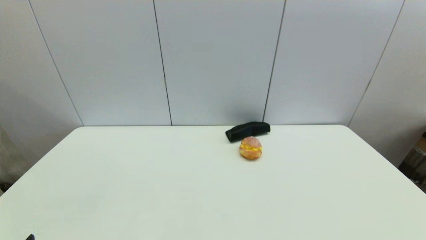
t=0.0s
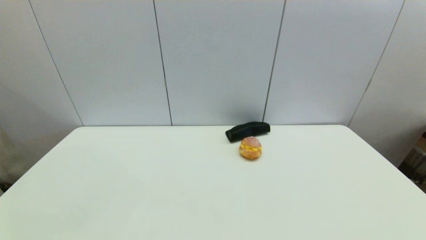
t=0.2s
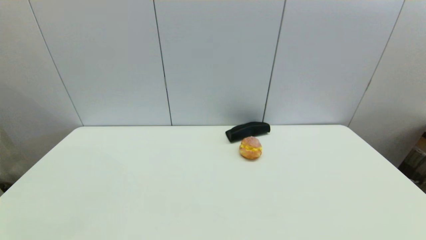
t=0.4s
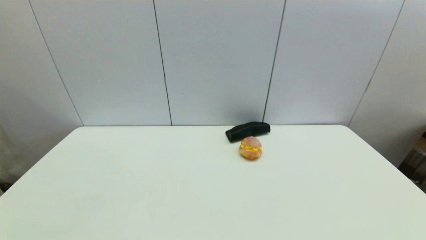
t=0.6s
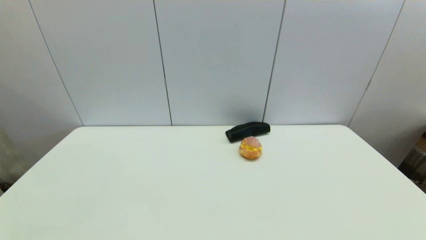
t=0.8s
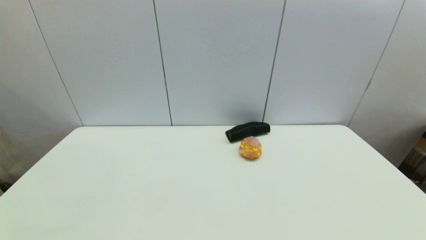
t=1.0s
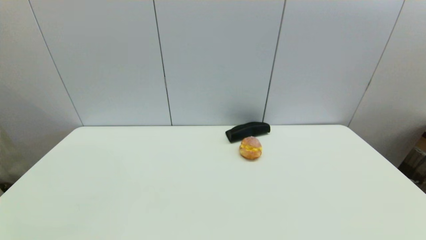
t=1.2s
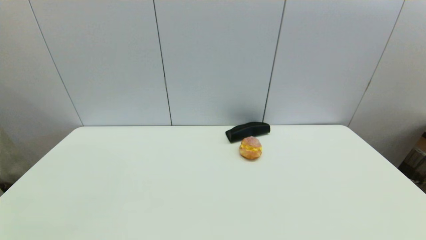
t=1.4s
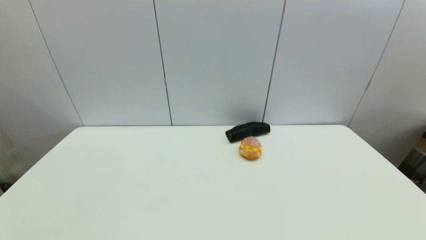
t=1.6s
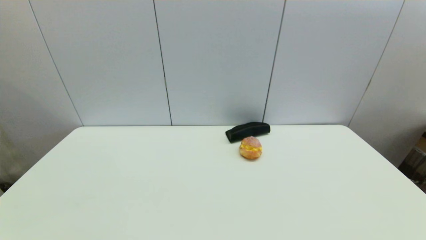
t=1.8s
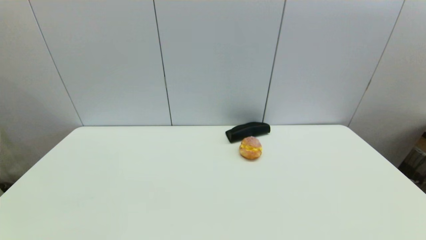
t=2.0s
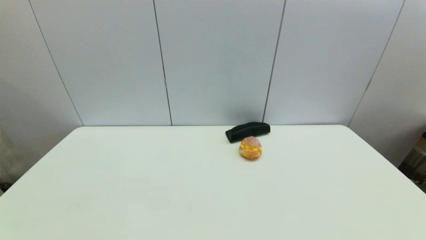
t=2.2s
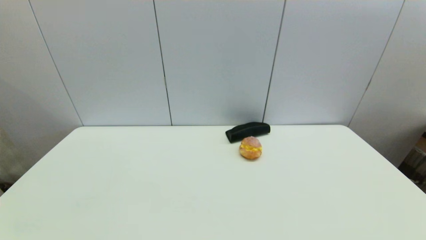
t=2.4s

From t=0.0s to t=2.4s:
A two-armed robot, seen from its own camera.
From t=1.2s to t=2.4s: Neither gripper changes place.

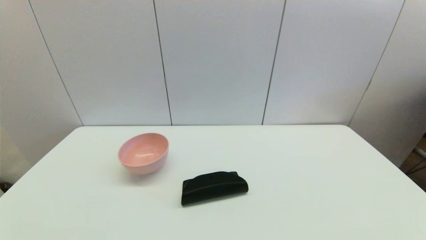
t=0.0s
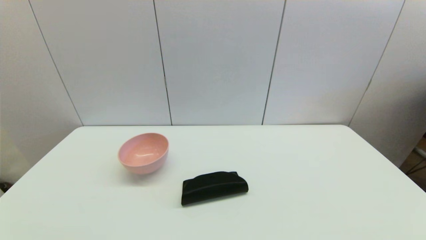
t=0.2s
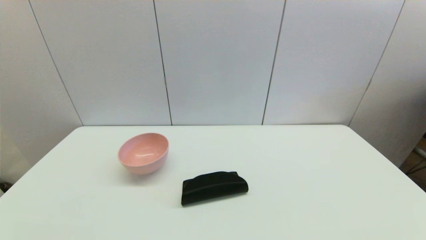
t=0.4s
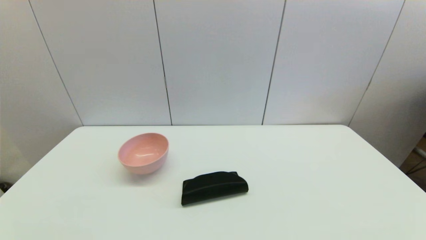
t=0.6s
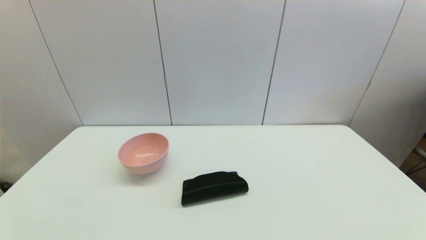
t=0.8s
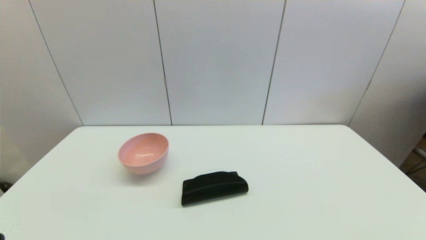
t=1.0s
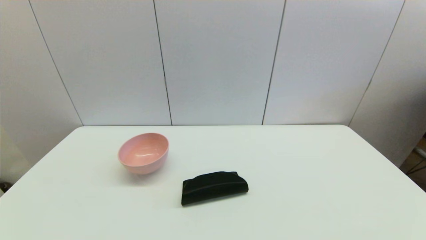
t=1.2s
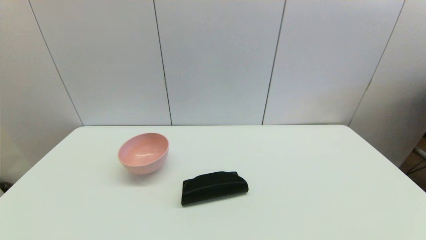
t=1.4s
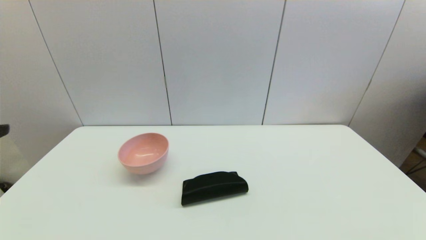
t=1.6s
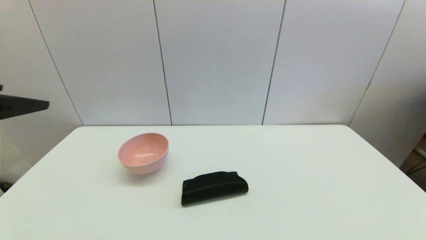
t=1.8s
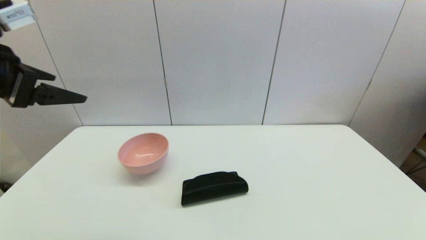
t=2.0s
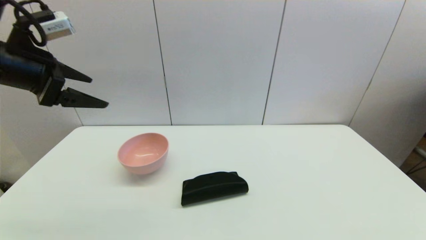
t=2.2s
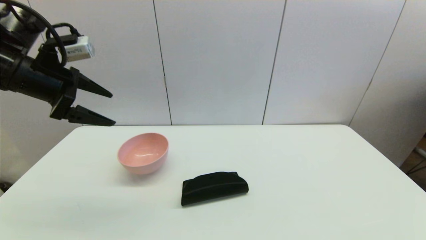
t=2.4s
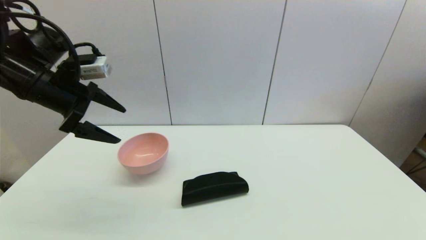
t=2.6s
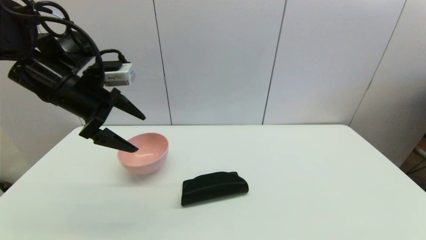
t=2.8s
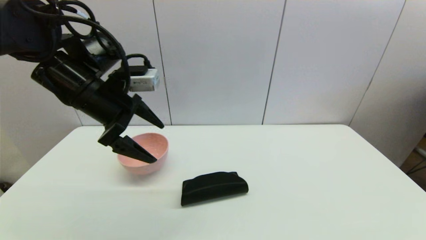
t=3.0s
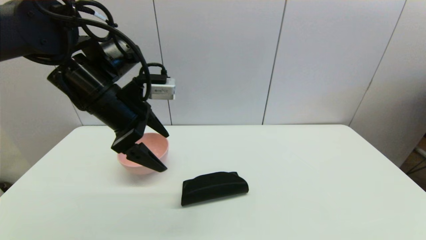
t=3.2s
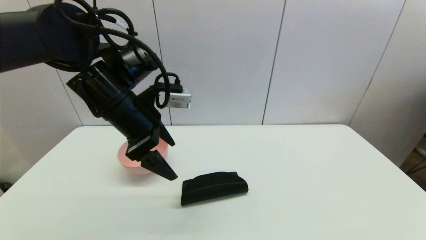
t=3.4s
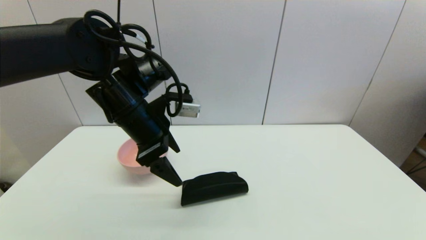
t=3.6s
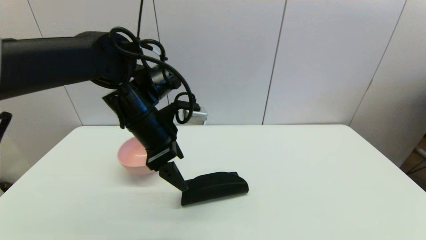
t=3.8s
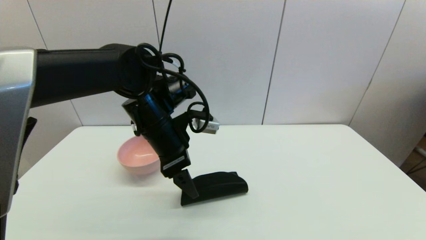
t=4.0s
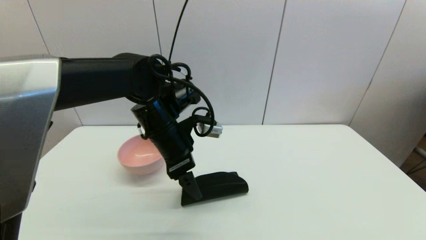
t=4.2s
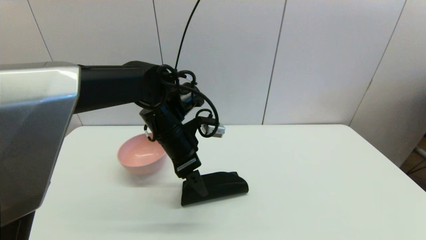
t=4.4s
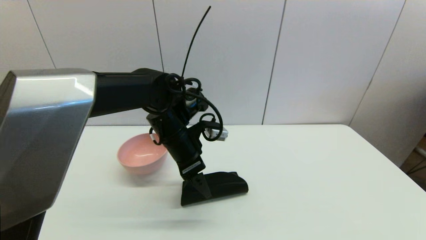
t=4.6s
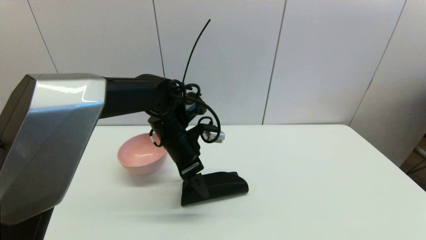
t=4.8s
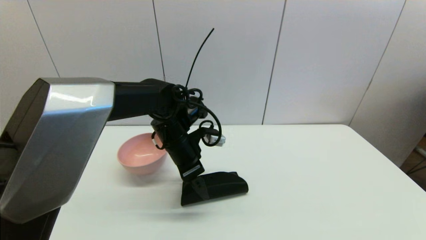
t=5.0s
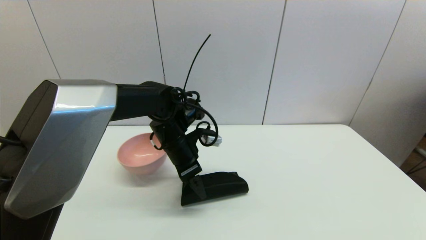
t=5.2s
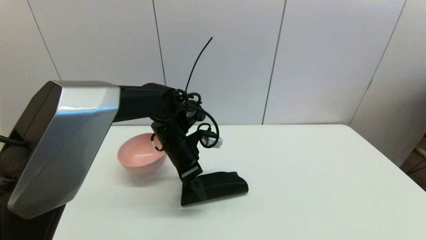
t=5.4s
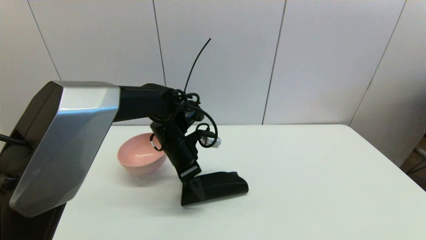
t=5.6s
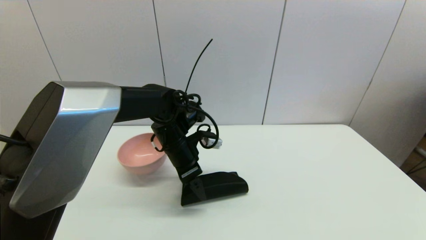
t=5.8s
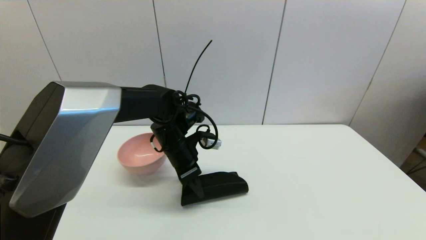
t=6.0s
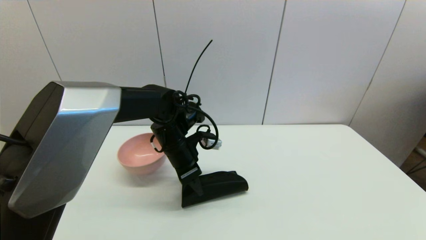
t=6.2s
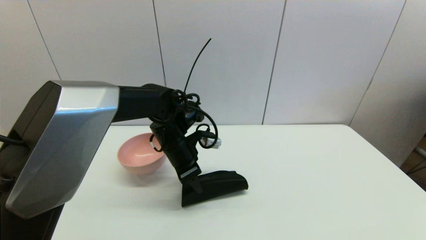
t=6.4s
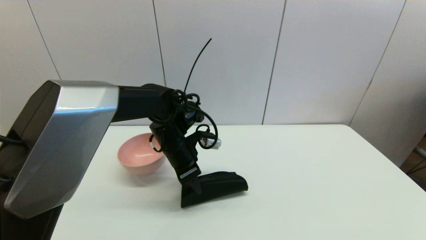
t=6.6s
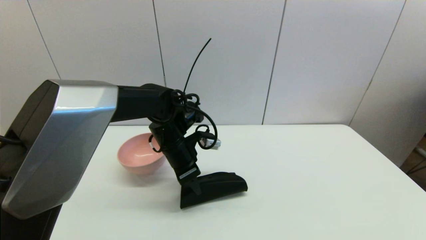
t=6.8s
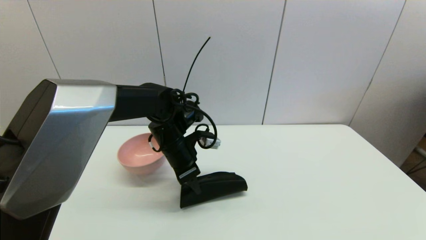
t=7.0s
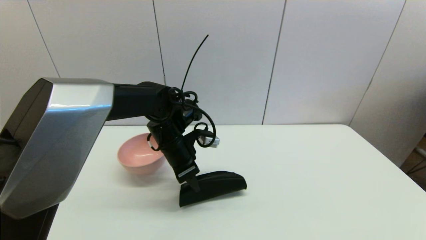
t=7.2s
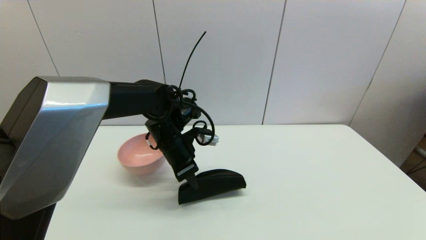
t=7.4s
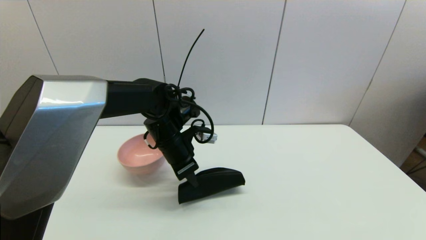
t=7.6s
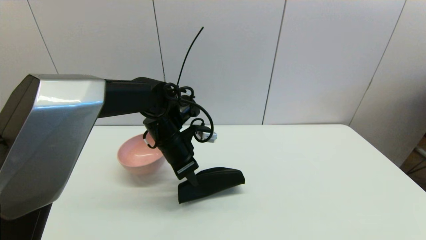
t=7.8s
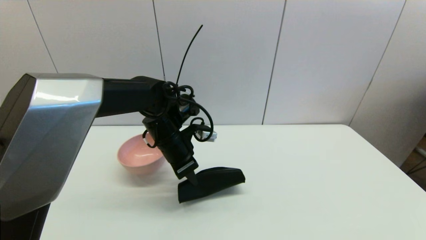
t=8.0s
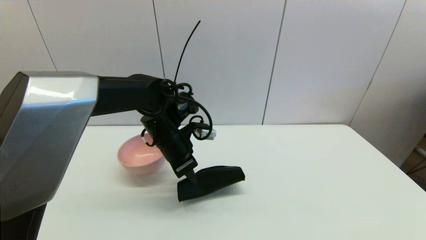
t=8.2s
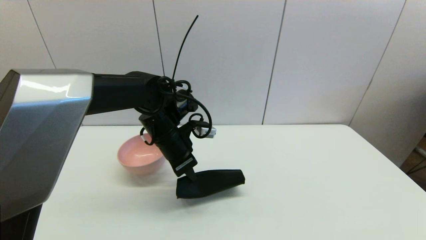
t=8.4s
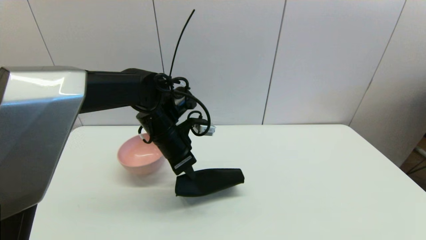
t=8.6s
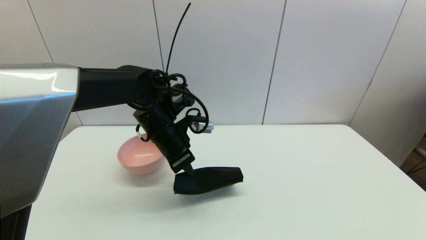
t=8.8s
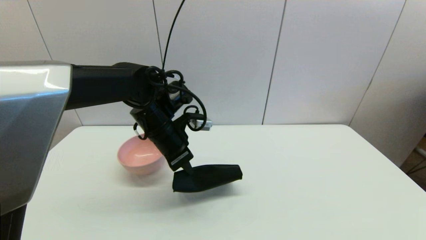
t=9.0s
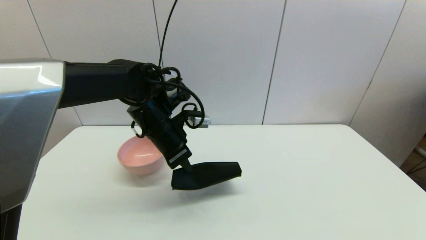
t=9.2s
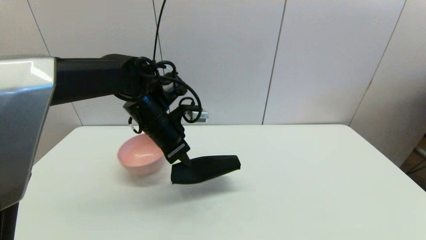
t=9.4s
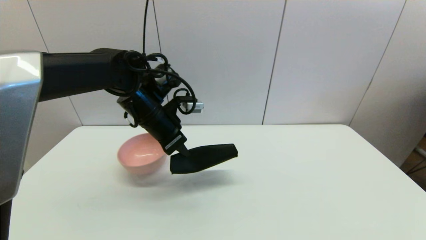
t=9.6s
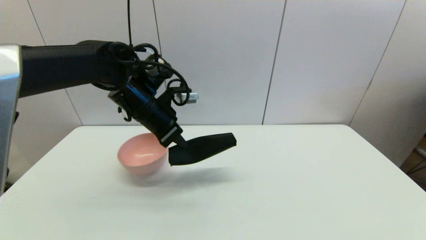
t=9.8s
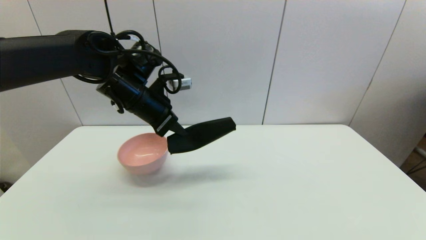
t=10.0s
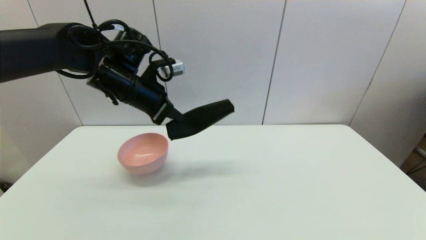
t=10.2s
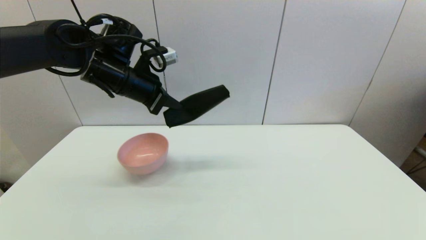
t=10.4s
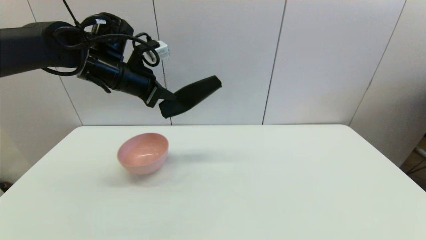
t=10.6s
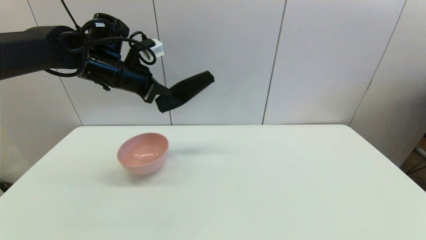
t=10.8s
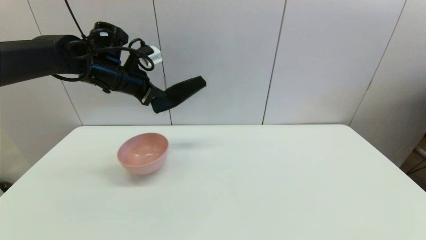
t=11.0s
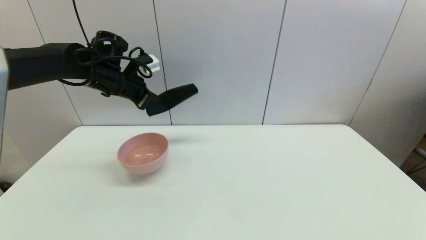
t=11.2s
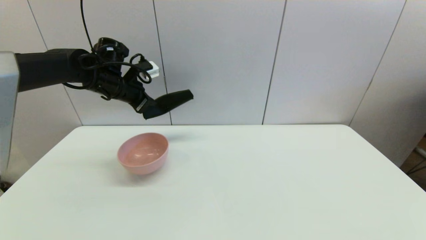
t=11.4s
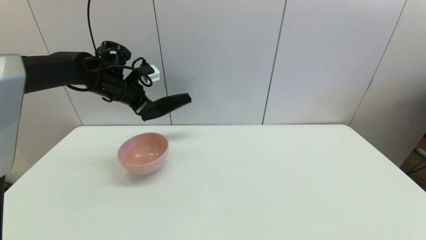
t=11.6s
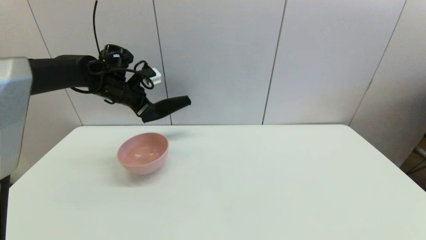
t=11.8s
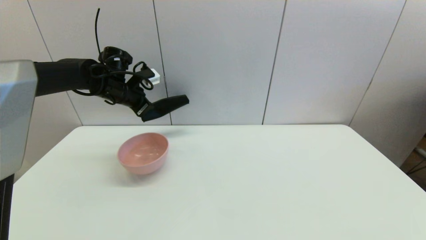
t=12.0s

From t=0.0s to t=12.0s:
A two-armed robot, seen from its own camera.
Step, from t=1.8s to t=6.8s: Grasp the glasses case with left gripper.
From t=1.6s to t=3.0s: The left gripper heads forward and to the right, covering approximately 25 cm.
From t=3.0s to t=4.4s: The left gripper heads to the right and downward, covering some 15 cm.
From t=4.4s to t=6.0s: The left gripper travels downward by about 5 cm.
From t=6.0s to t=7.6s: The left gripper closes.
From t=7.6s to t=9.0s: The grippers move only a little.
From t=9.0s to t=10.4s: The left gripper goes about 10 cm upward and to the left.
From t=10.4s to t=12.0s: The left gripper travels forward, downward and to the left by about 15 cm.

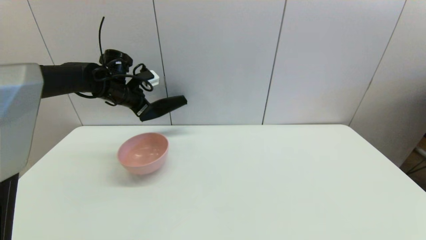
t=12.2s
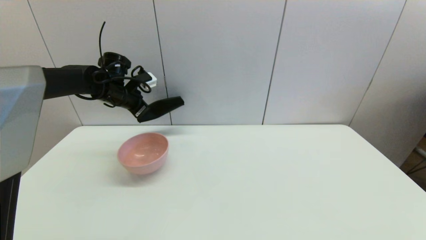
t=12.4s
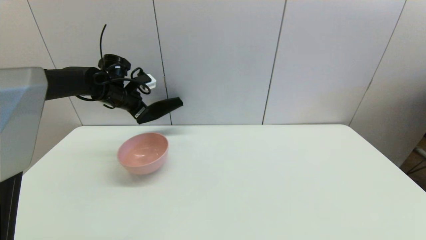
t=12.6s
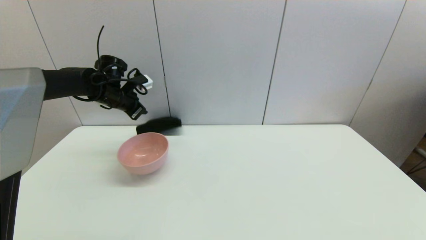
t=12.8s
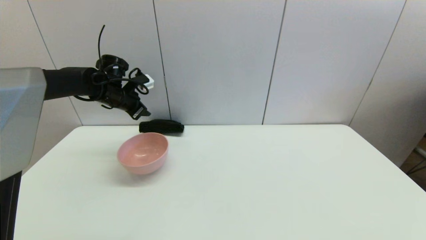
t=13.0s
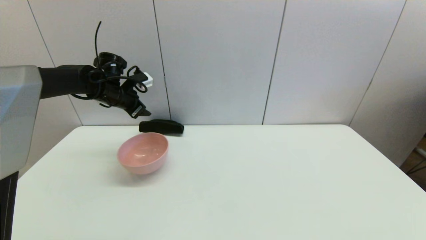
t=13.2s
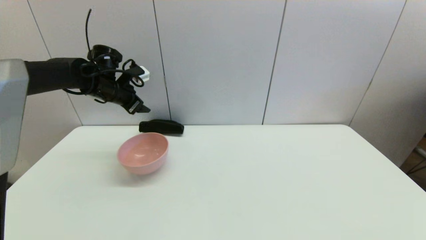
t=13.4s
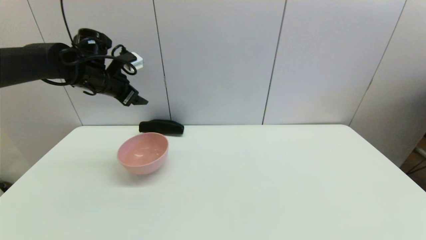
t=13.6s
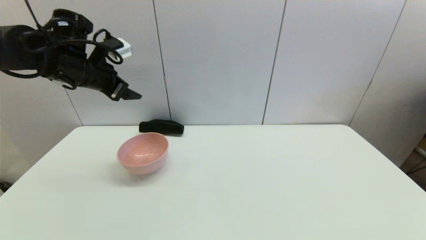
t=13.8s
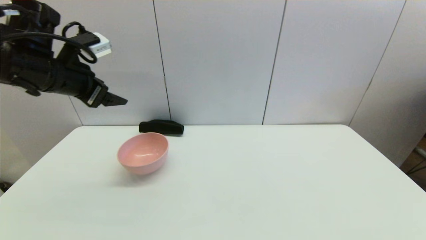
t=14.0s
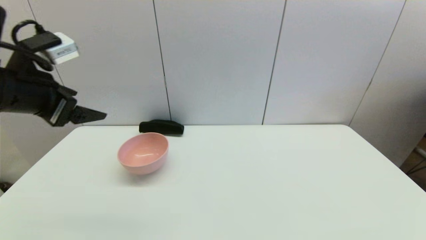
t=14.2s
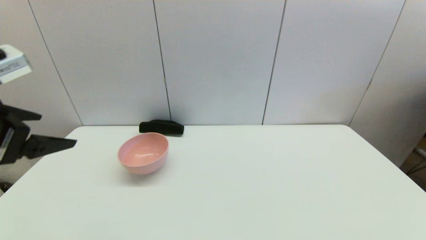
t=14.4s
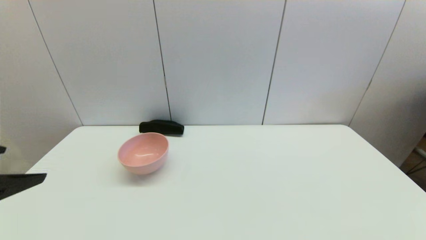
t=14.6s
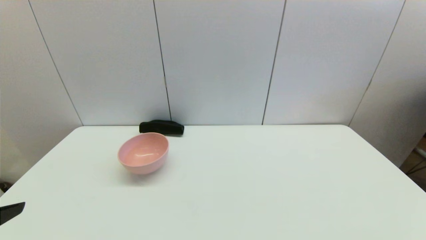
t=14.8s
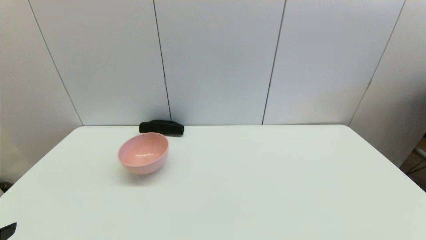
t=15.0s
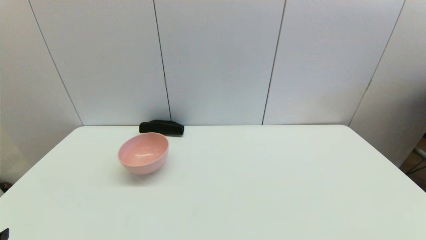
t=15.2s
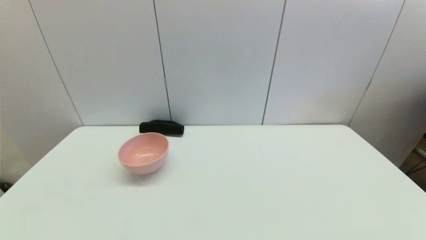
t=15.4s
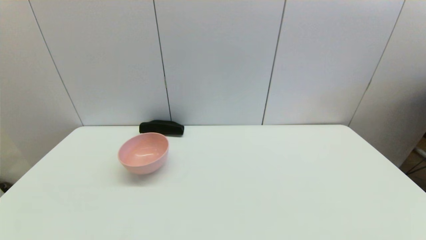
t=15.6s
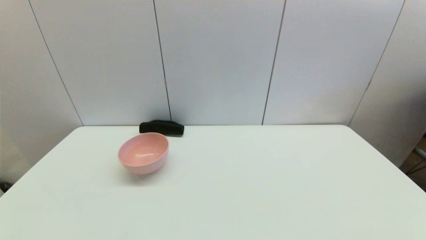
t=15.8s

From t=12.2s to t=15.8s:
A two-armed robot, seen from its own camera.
From t=12.2s to t=14.0s: The left gripper moves backward and upward, roughly 20 cm, and opens up.
From t=14.0s to t=15.8s: The left gripper shifts some 35 cm backward and downward.
